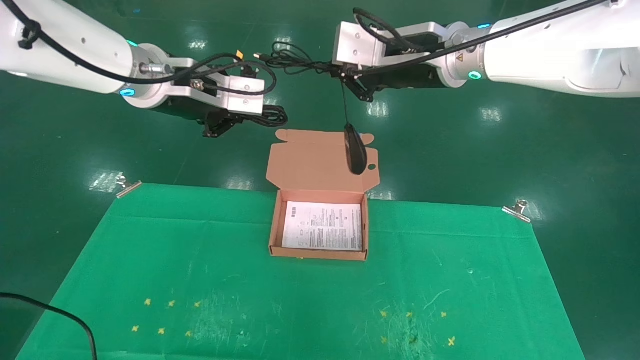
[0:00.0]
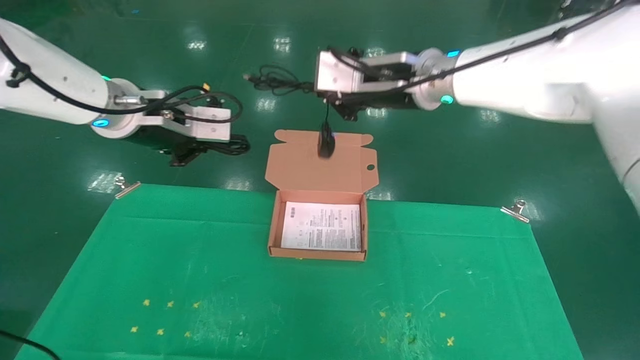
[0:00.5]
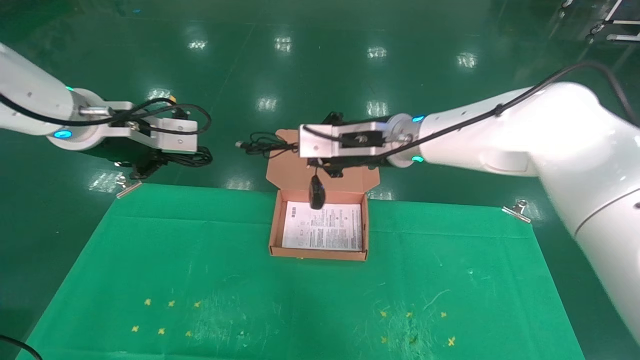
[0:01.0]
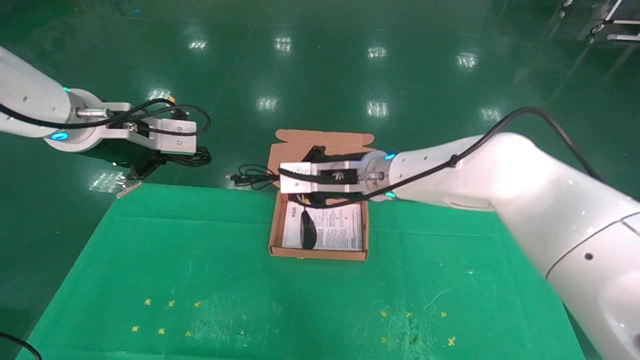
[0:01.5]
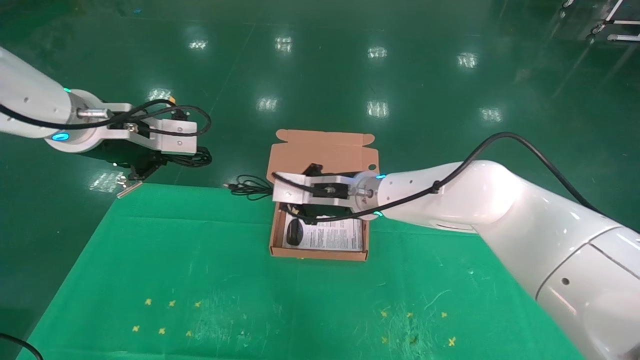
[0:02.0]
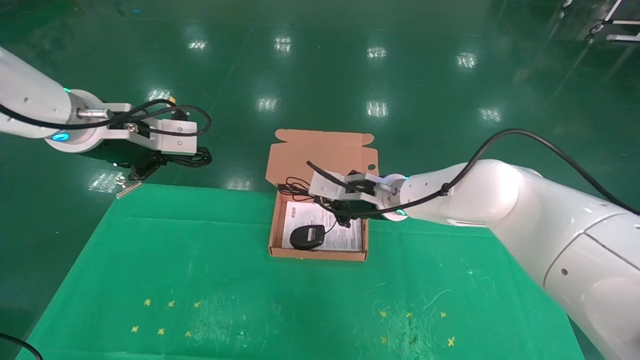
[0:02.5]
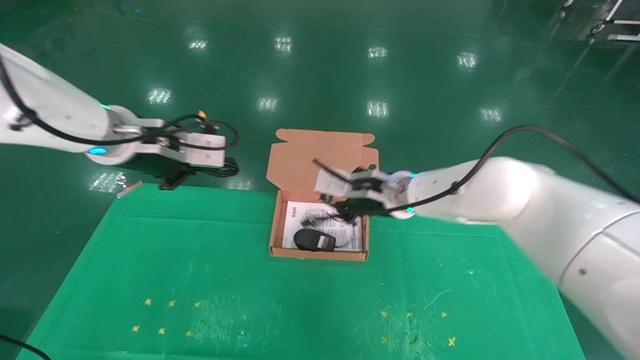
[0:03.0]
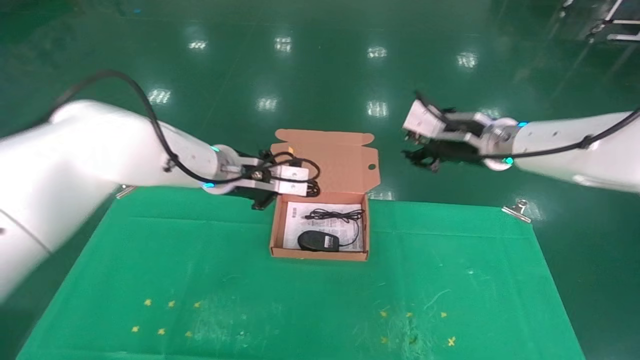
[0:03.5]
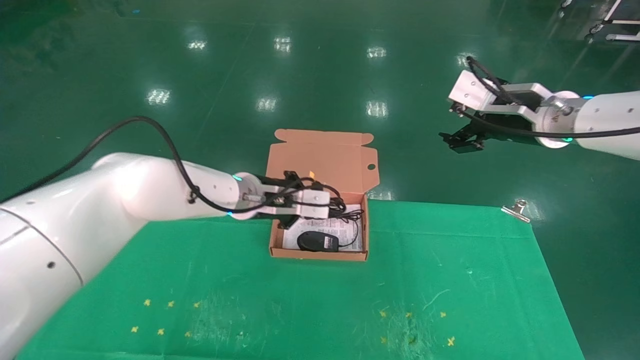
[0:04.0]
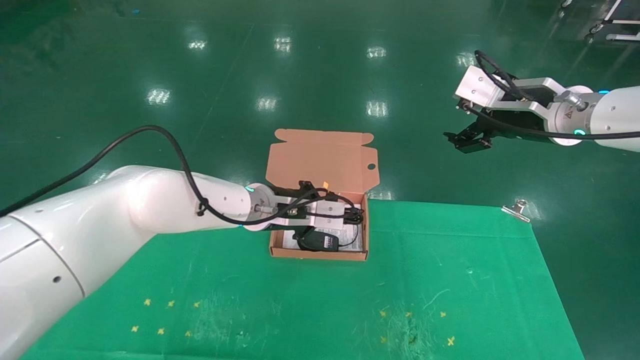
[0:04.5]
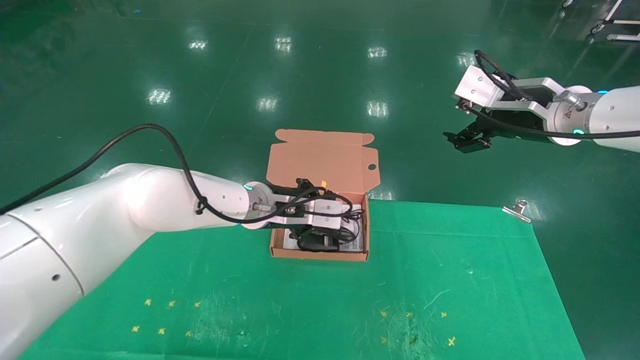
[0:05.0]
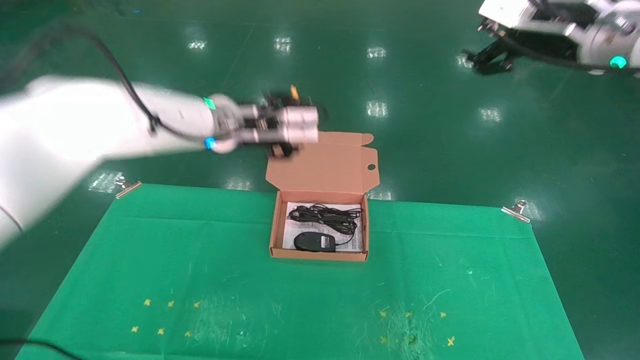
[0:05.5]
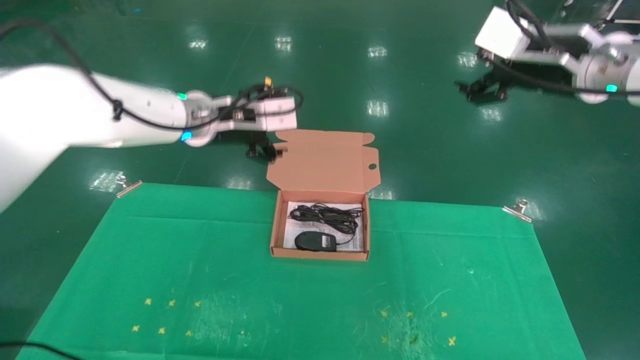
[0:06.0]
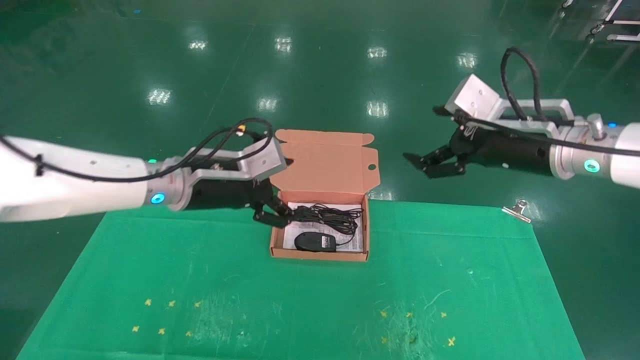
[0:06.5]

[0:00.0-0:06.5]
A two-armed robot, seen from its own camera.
Task of the whole recording: grasp data cable left put into box grasp mouse right put into box.
Step, 0:00.0 to 0:05.0: Place the mouse and power cord into the box.
0:00.0 to 0:02.0: The right gripper goes about 20 cm downward; the left gripper goes some 10 cm to the left.
0:02.0 to 0:04.5: The right gripper is displaced to the right and upward by roughly 25 cm, and opens up; the left gripper is displaced to the right, downward and forward by roughly 25 cm.
0:04.5 to 0:06.5: The left gripper is displaced to the left, backward and upward by some 10 cm, and opens up. Meanwhile the right gripper reaches approximately 10 cm upward, then returns.
